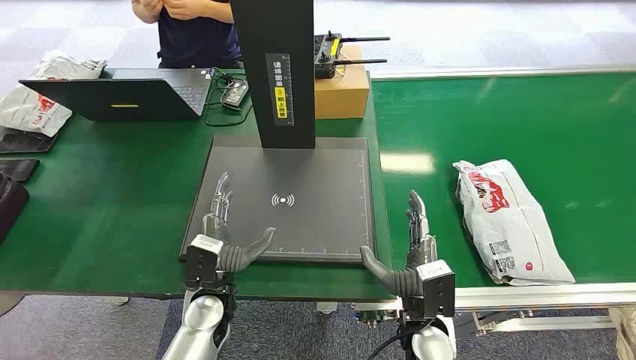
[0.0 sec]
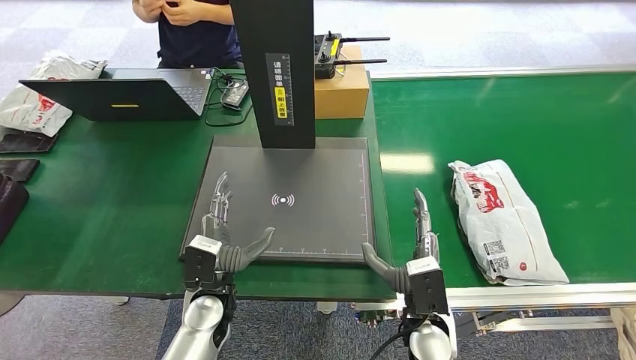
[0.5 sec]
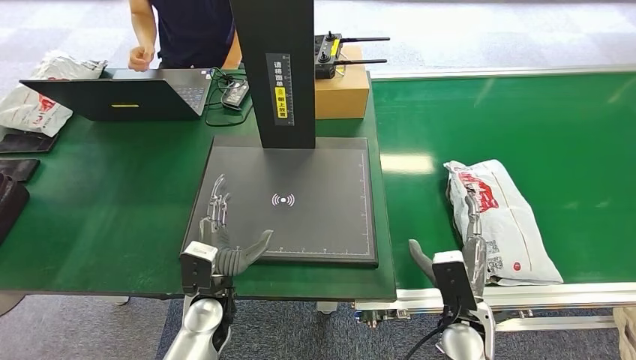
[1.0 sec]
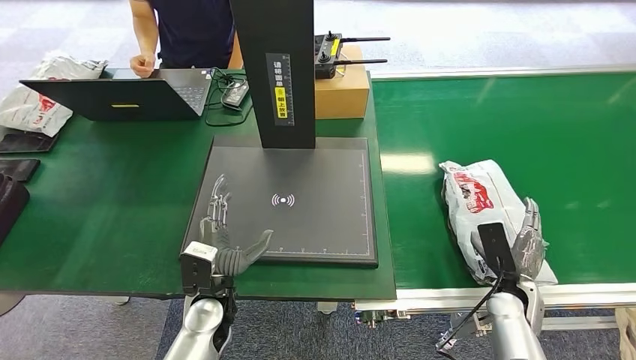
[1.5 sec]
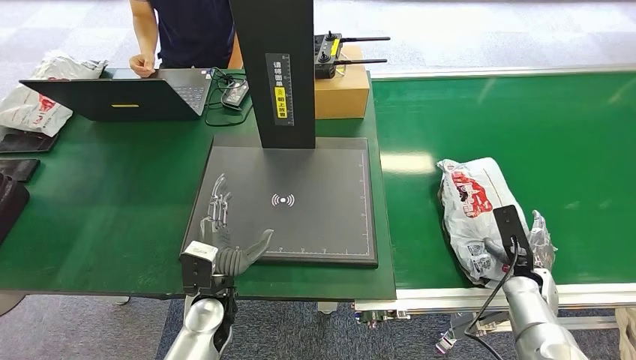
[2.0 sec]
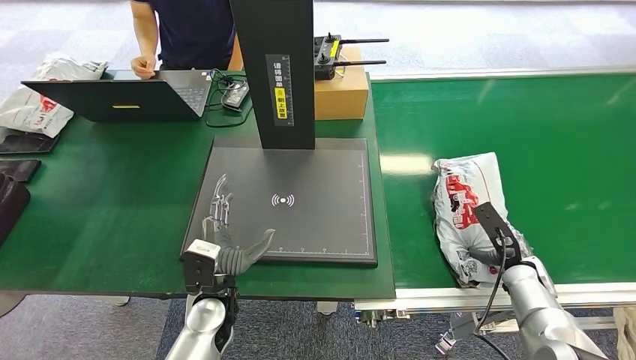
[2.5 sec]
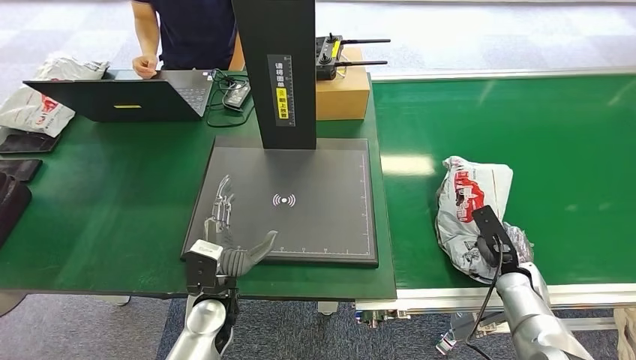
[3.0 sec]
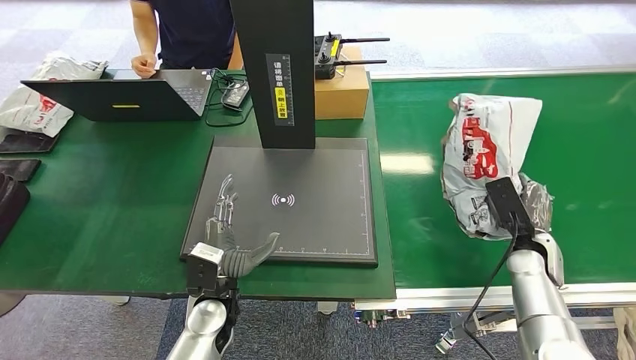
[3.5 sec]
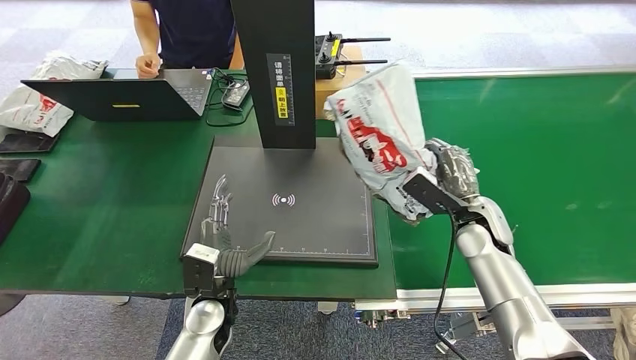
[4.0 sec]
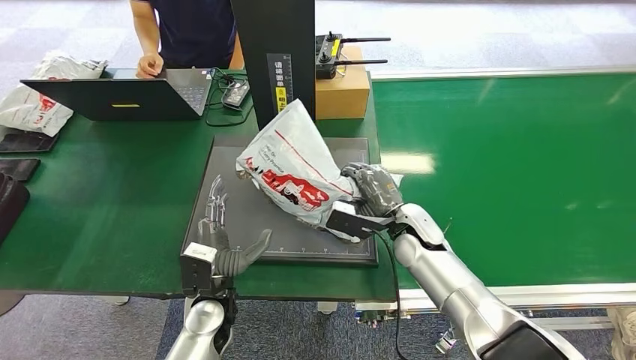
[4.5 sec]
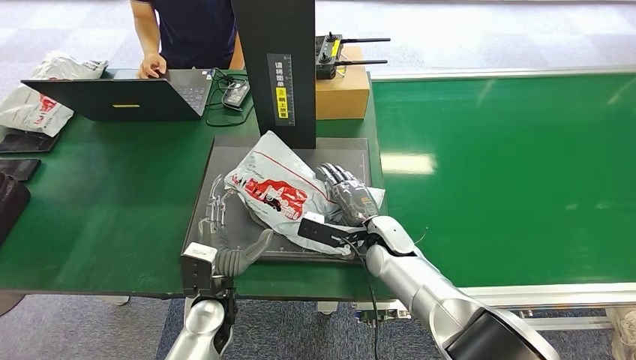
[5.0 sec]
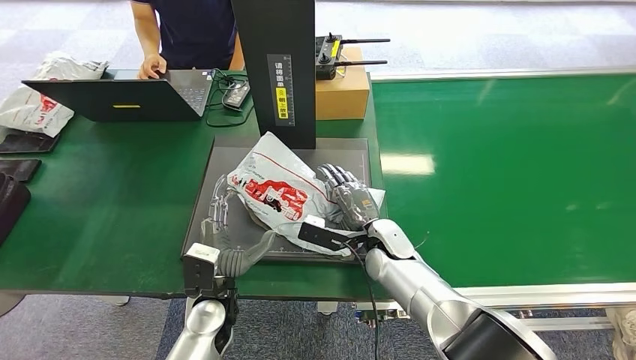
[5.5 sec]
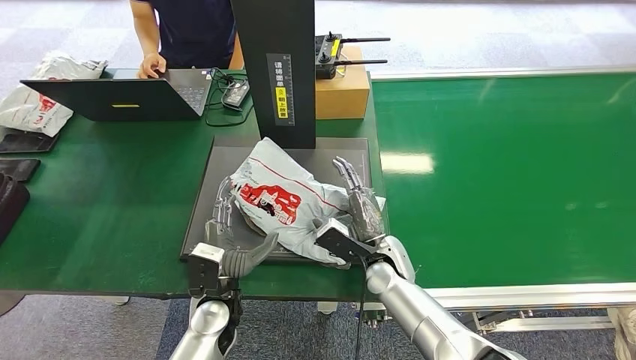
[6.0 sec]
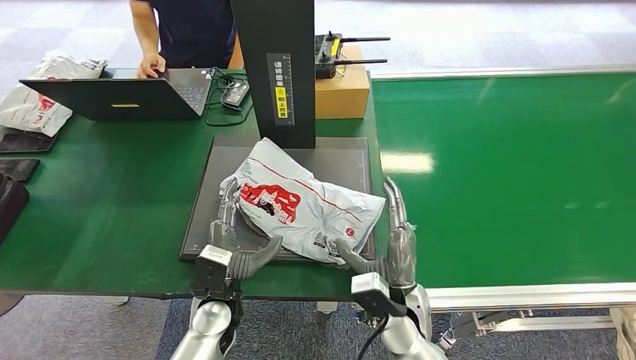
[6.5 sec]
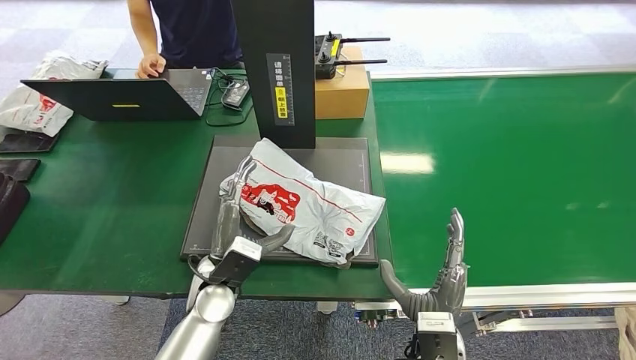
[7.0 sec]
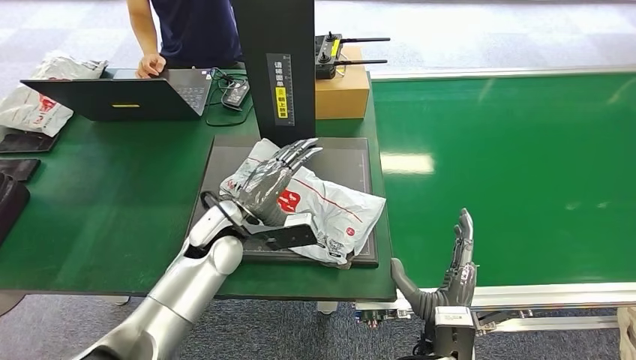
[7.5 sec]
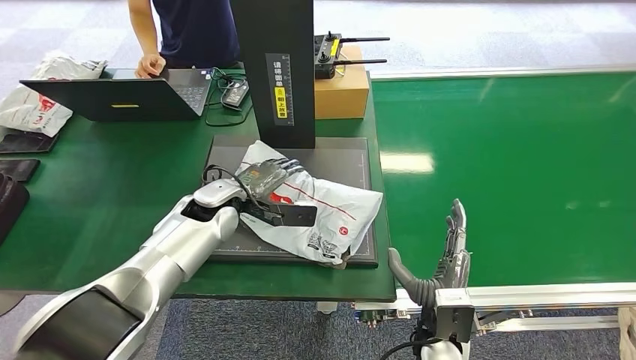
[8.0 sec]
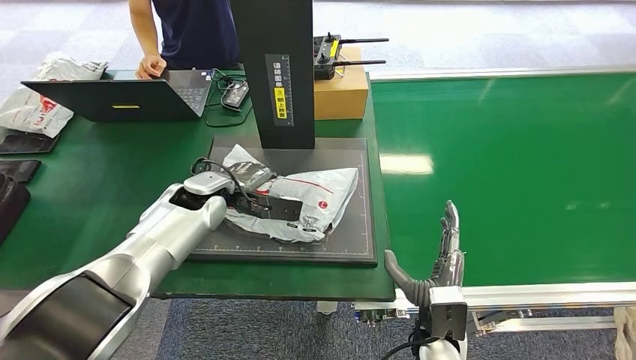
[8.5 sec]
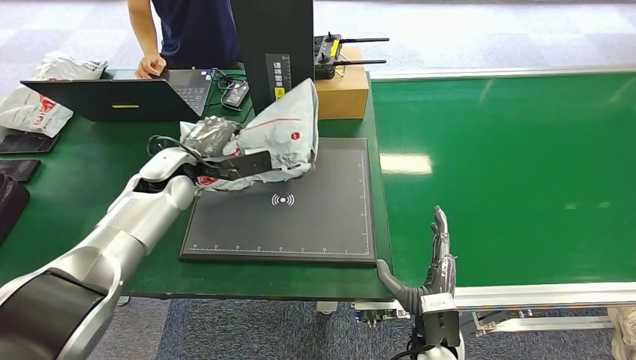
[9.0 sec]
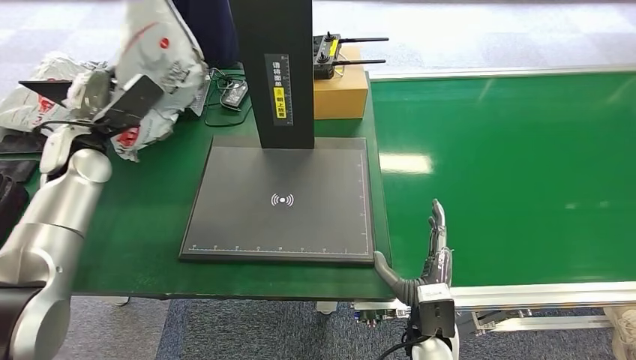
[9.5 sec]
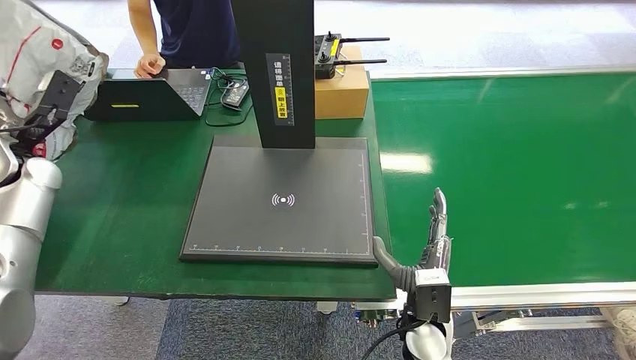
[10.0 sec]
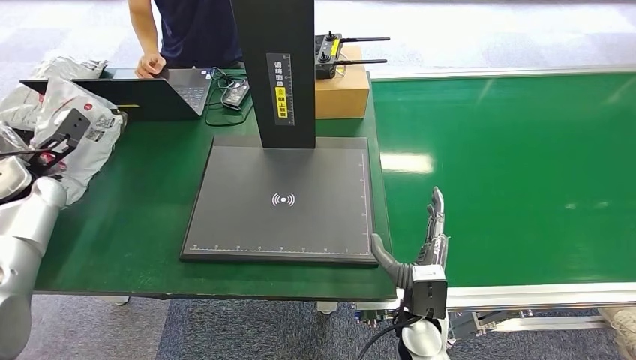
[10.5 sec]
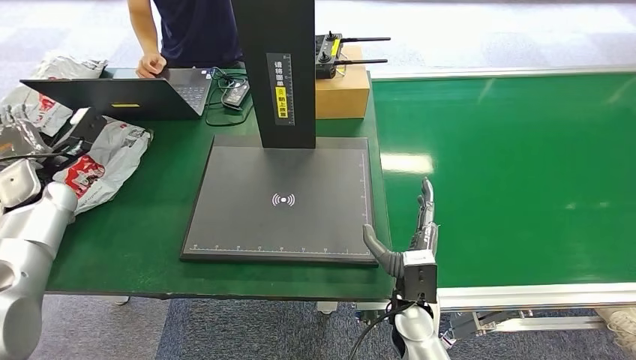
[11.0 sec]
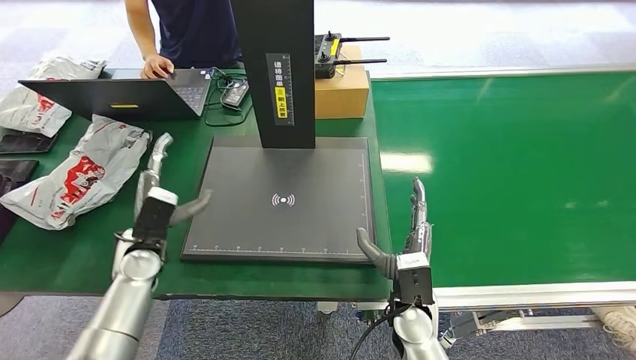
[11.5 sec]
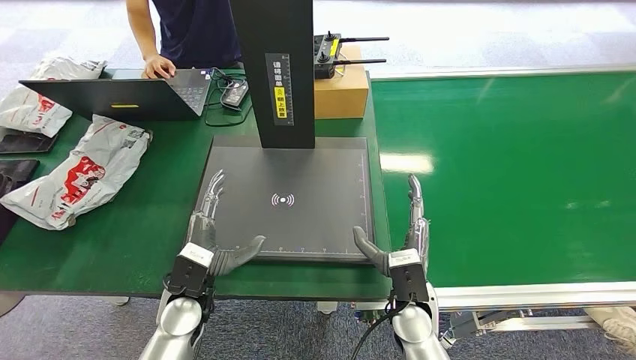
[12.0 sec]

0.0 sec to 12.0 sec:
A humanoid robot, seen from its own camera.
Step, 0.0 sec to 3.5 sec: Pick up the package from the conveyor belt.
Step, 4.0 sec to 6.0 sec: Place the package onto the inbound machine.
Step, 6.5 sec to 9.0 sec: Pick up the package from the inbound machine.
Step, 9.5 sec to 12.0 sec: Place the package into the parcel locker.
2.0 sec to 4.0 sec: The right hand moves upward, to the left and forward, approximately 20 cm.
6.0 sec to 8.0 sec: The left hand shifts about 20 cm forward and upward. The right hand travels backward and to the right by approximately 15 cm.
10.0 sec to 12.0 sec: The left hand heads to the right, backward and downward, covering some 35 cm.

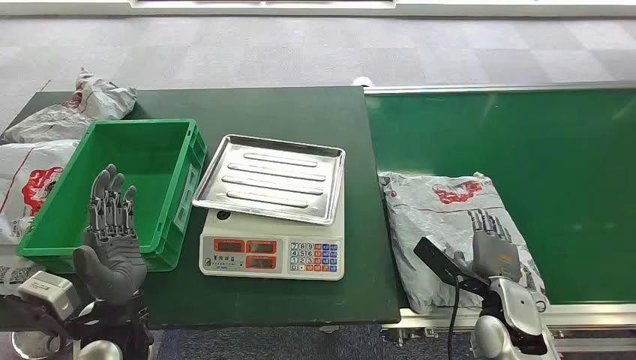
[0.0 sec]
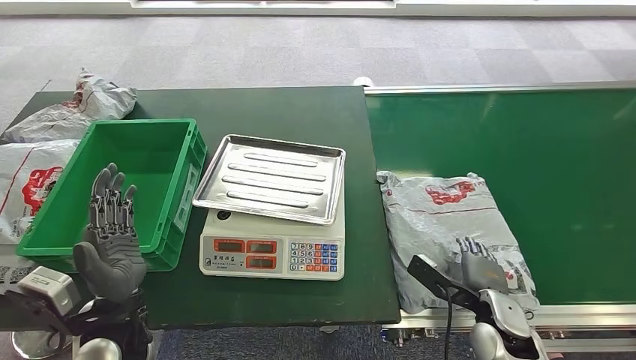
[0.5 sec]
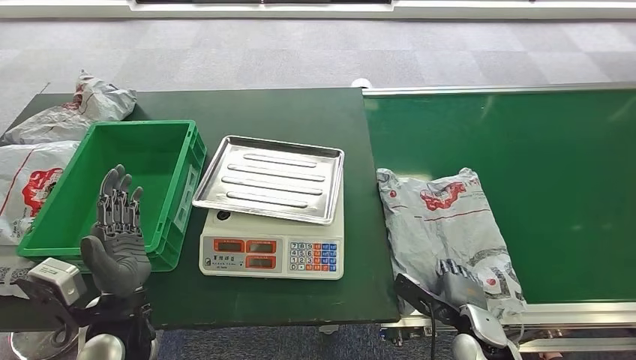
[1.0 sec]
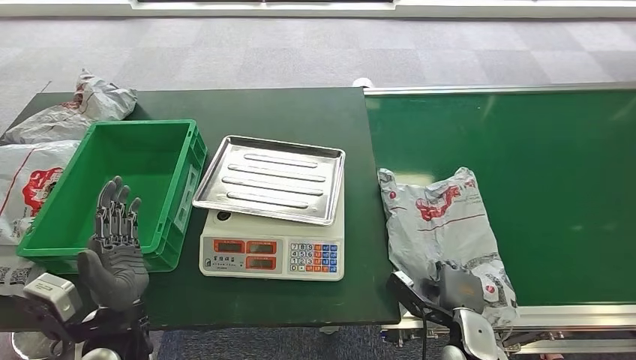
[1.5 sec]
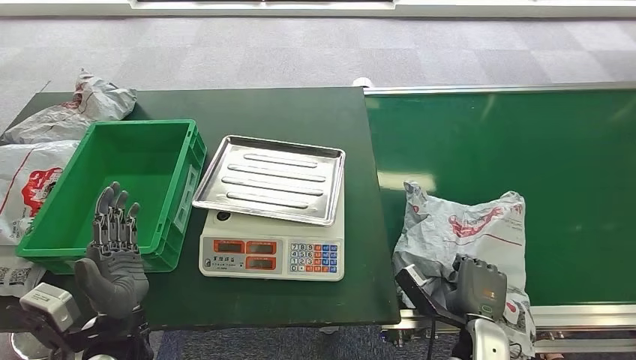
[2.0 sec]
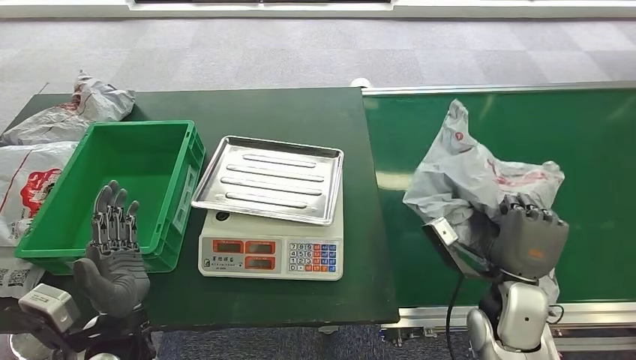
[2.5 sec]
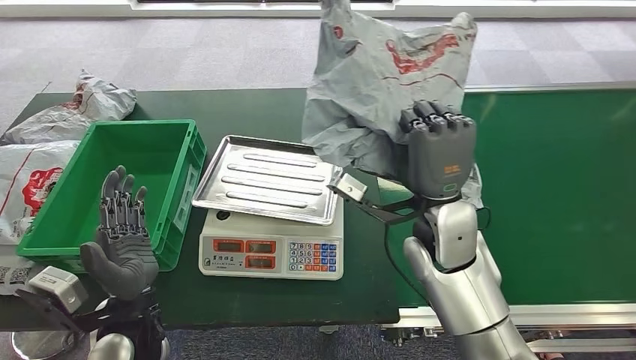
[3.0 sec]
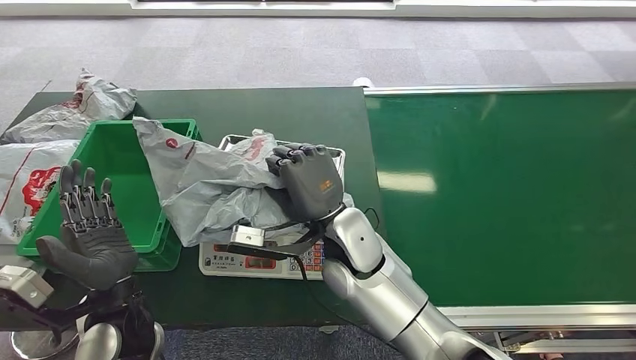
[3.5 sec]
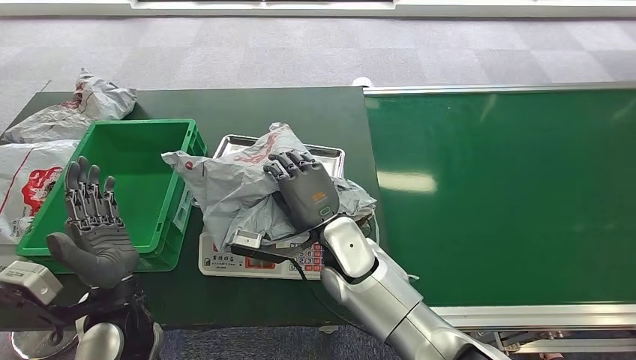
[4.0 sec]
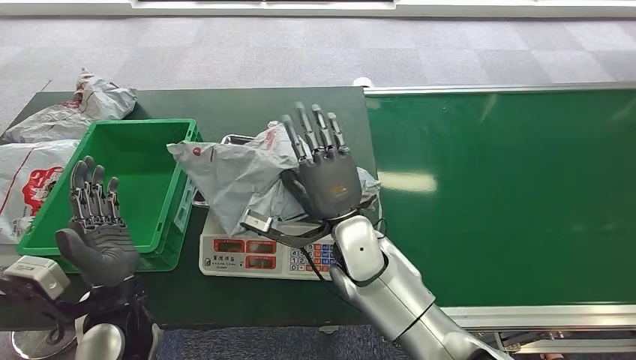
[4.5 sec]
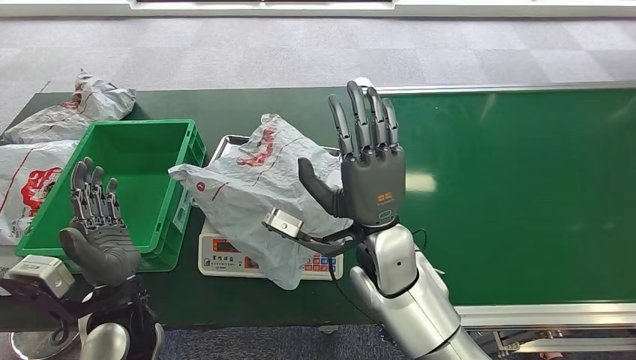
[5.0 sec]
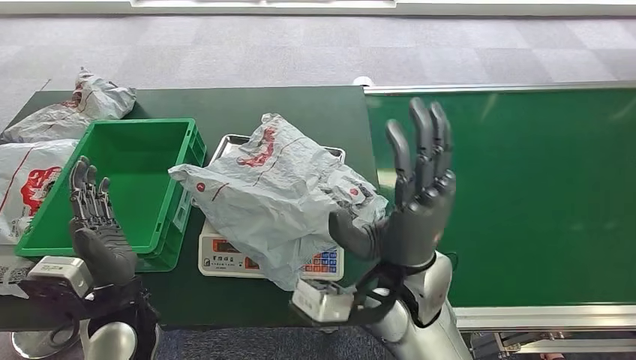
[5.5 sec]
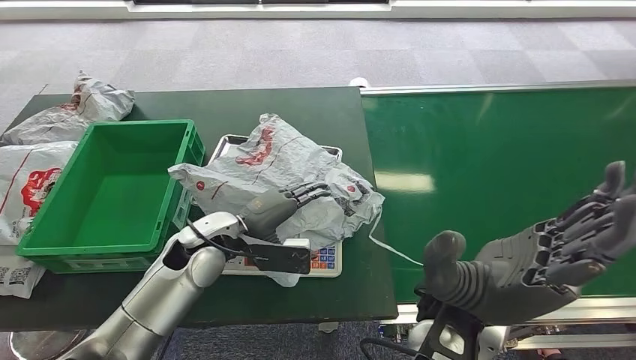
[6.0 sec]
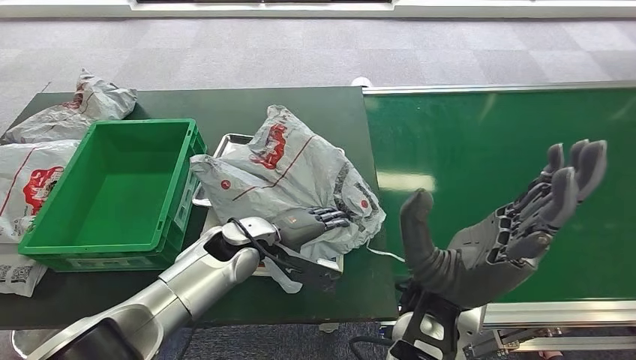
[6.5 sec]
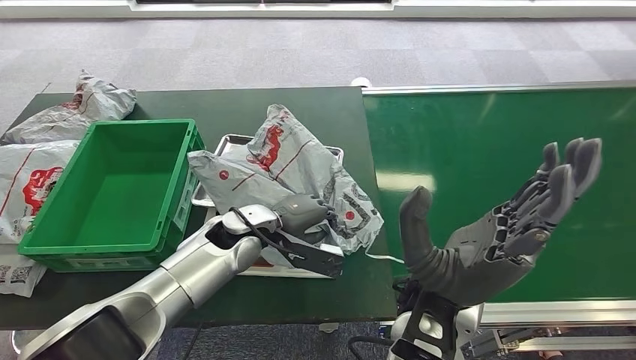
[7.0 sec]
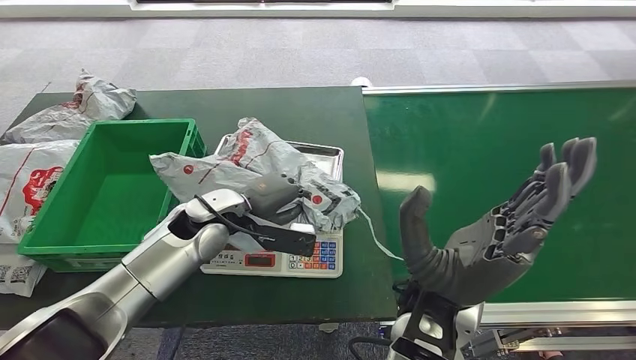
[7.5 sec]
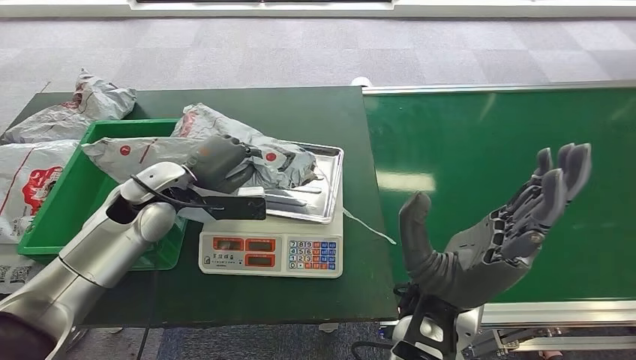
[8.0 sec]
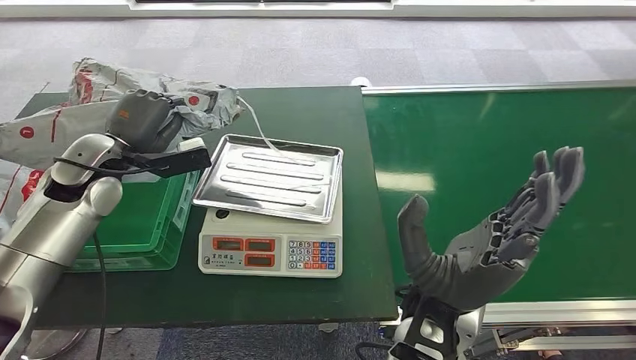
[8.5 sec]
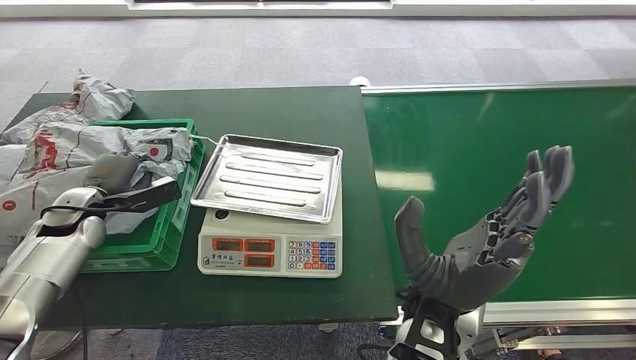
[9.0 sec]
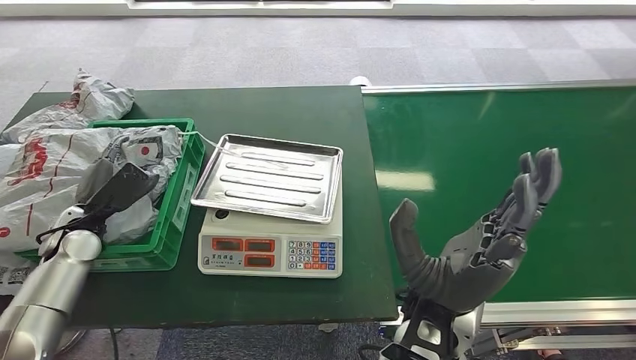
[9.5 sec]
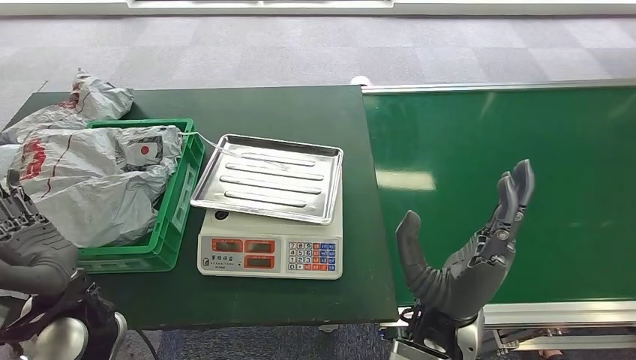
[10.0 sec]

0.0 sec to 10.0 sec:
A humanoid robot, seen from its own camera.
Step, 0.0 sec to 3.0 sec: Pick up the package from the conveyor belt.
Step, 3.5 sec to 5.0 sec: Place the package onto the inbound machine.
Step, 5.5 sec to 8.0 sec: Pick up the package from the inbound machine.
Step, 8.5 sec to 10.0 sec: Place the package into the parcel locker.
